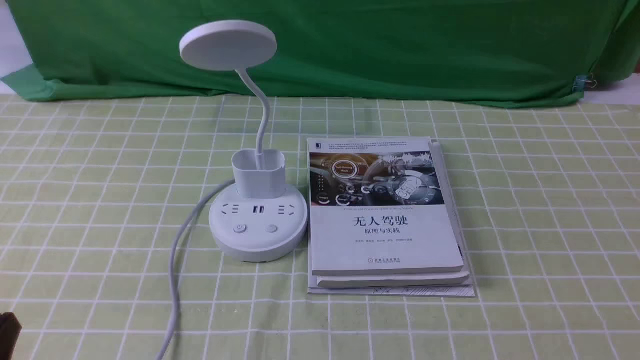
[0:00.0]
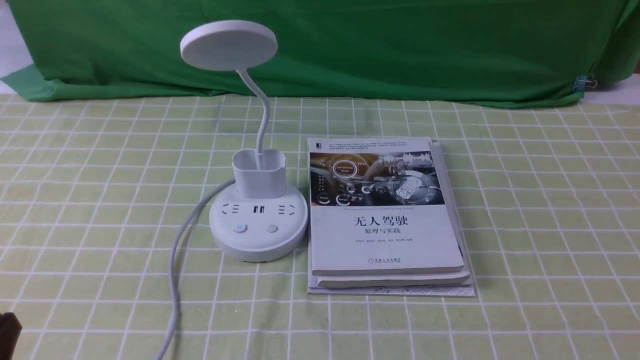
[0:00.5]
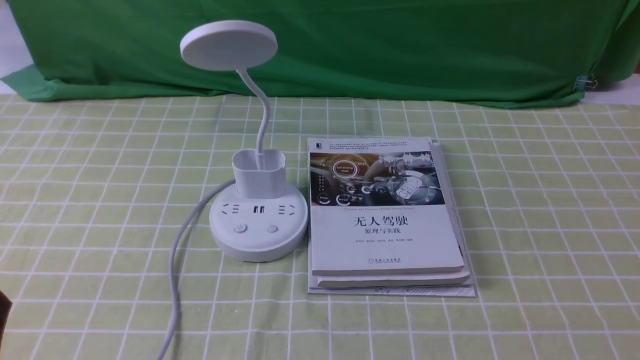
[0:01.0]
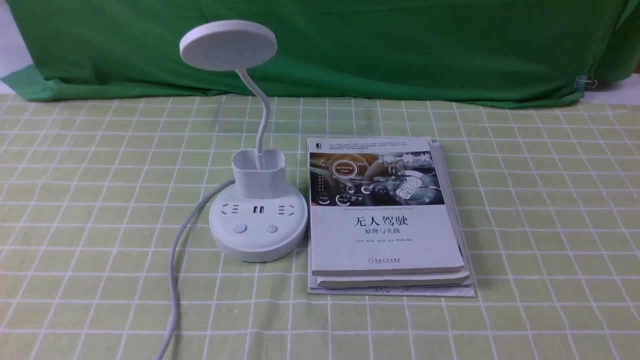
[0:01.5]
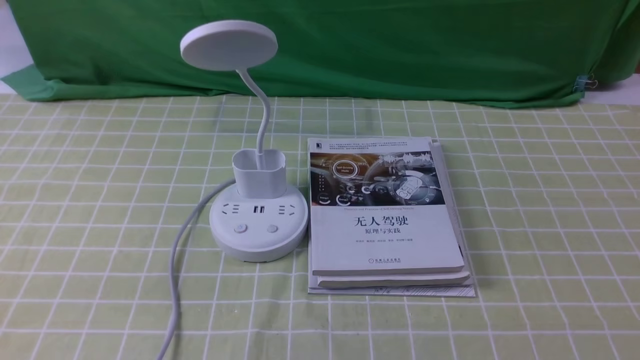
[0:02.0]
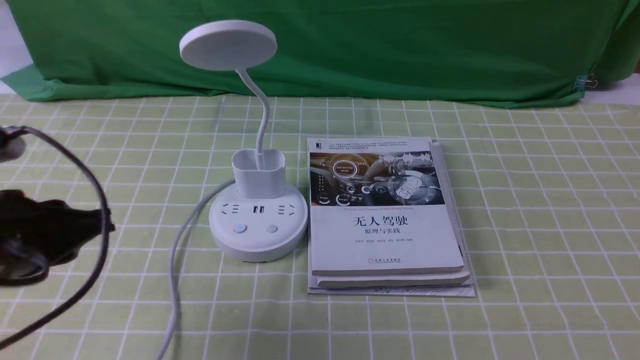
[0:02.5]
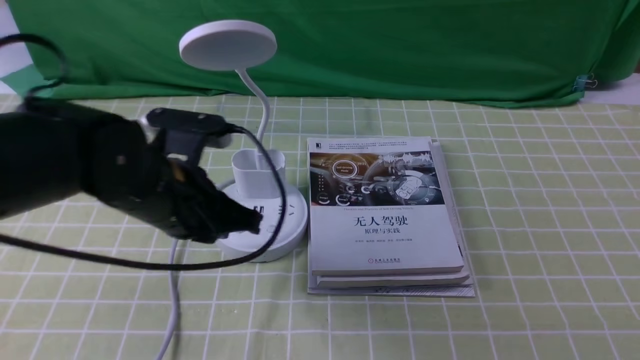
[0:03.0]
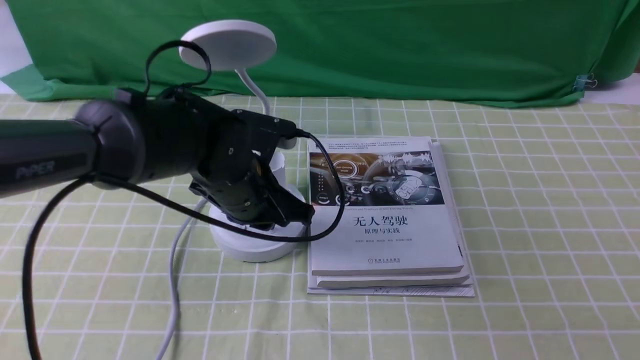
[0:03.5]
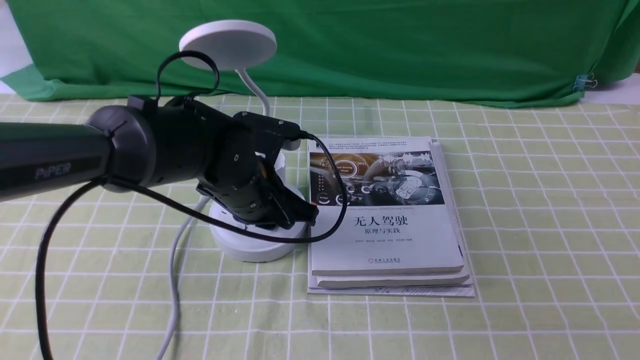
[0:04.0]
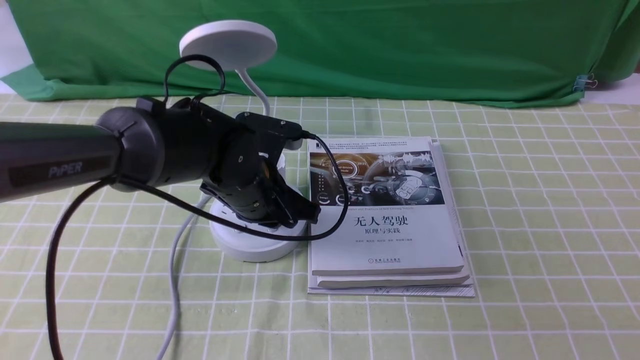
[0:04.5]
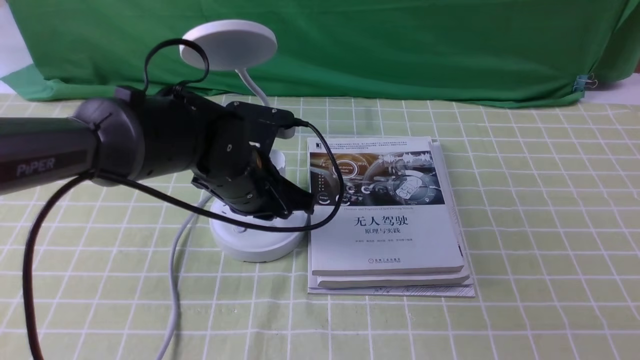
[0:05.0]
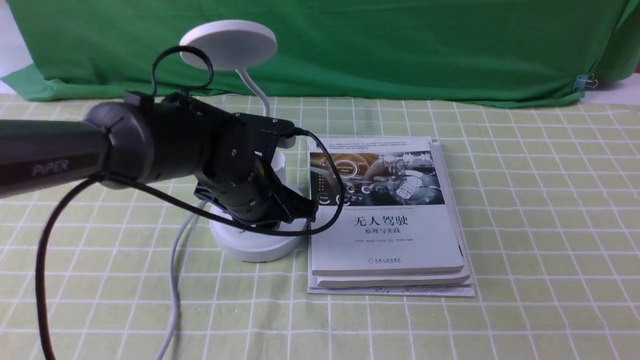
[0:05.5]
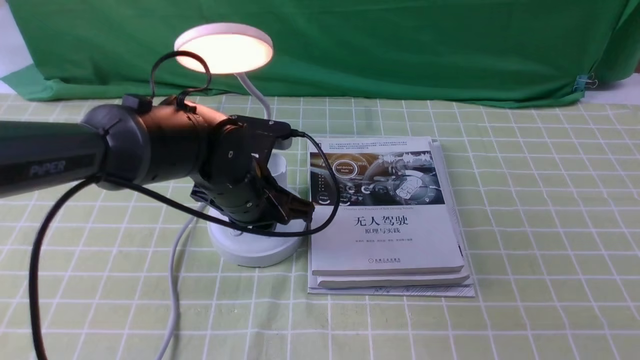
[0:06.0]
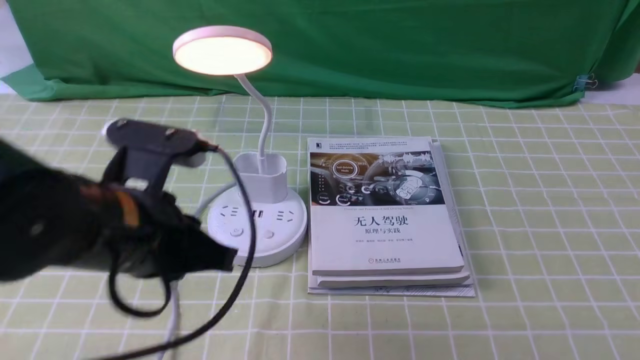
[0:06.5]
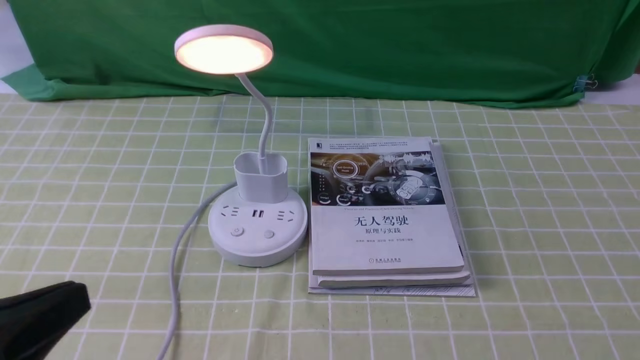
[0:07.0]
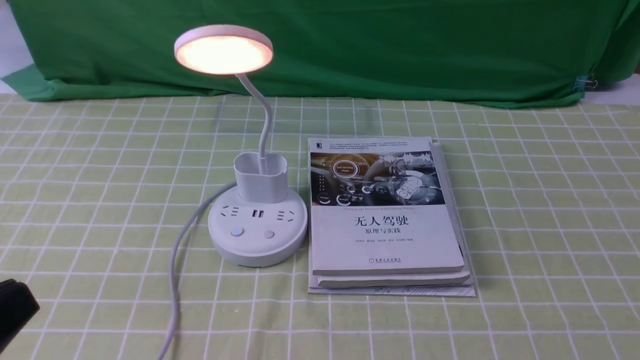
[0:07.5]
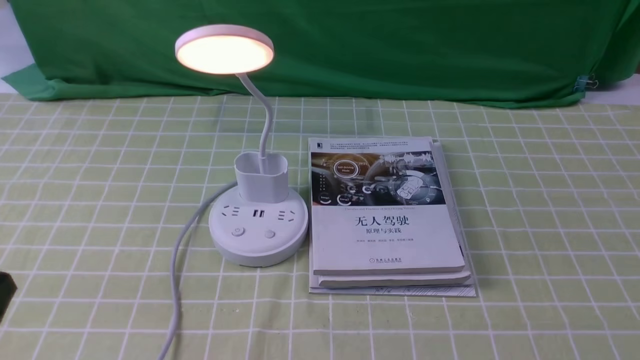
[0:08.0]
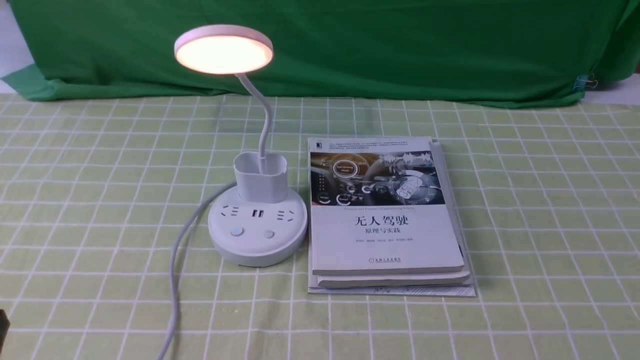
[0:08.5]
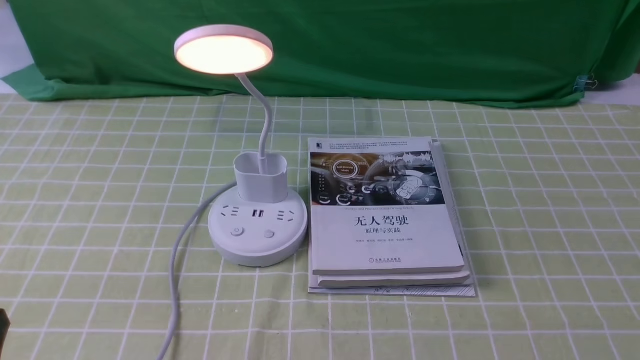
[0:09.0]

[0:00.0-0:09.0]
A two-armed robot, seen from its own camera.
Step, 0:00.0 to 0:06.0: use the left arm to press the button switch on the lamp holder.
0:02.0 to 0:04.5: The left gripper goes some 35 cm forward, to the right and downward.
0:04.5 to 0:07.0: The left gripper travels backward, to the left and upward by approximately 30 cm.
0:07.0 to 0:09.0: The left gripper travels downward and to the left by approximately 10 cm, and opens its fingers.

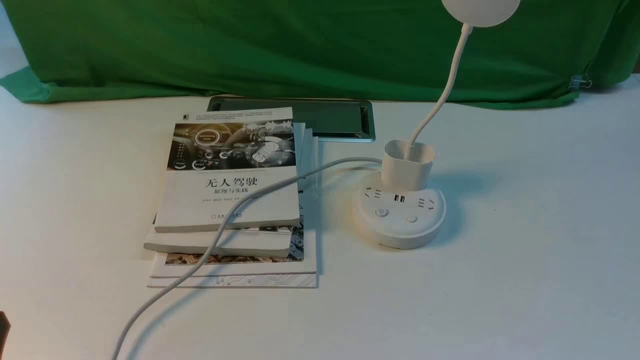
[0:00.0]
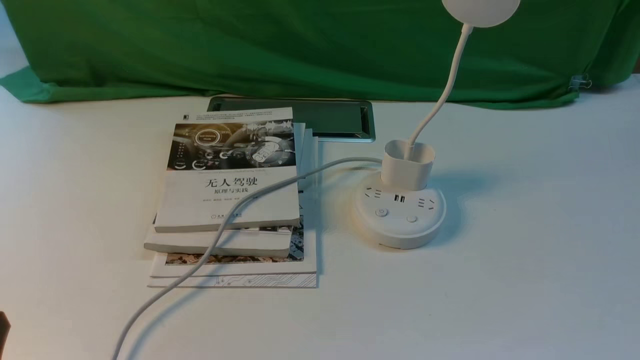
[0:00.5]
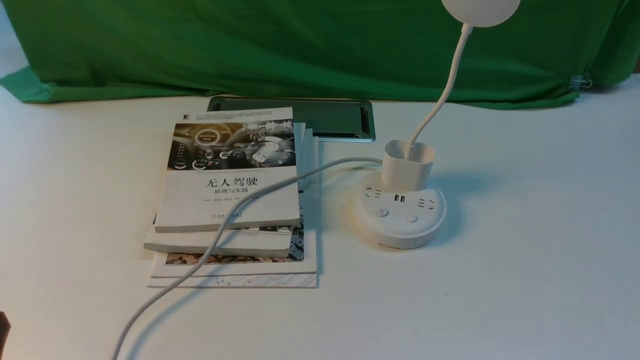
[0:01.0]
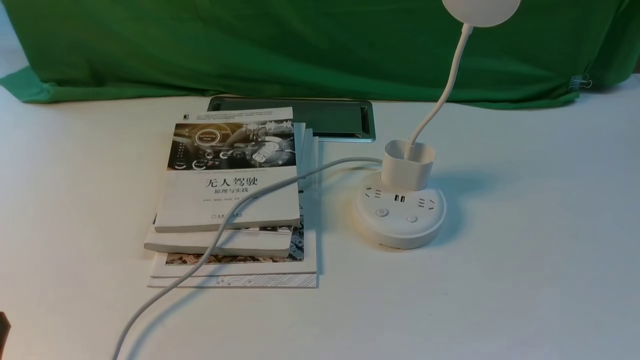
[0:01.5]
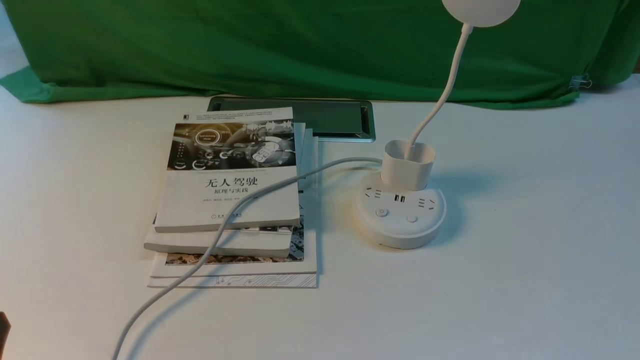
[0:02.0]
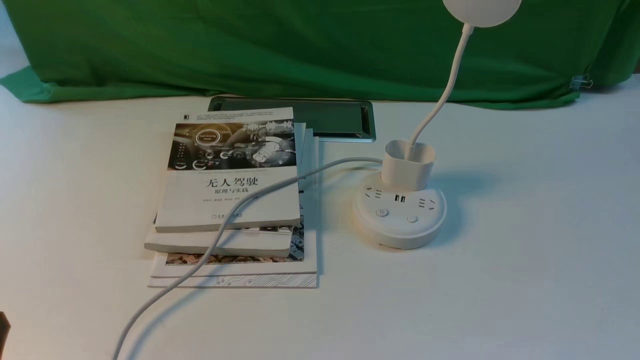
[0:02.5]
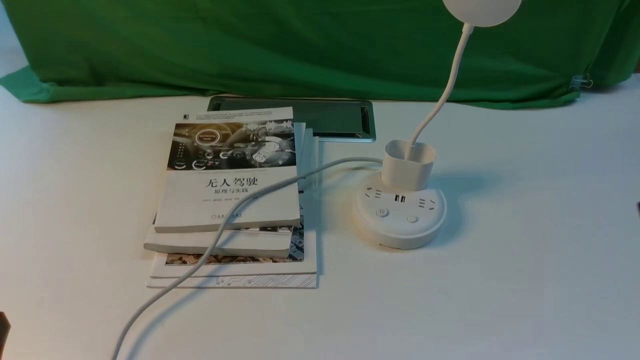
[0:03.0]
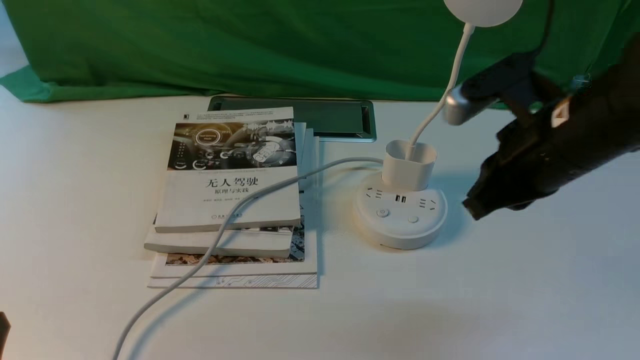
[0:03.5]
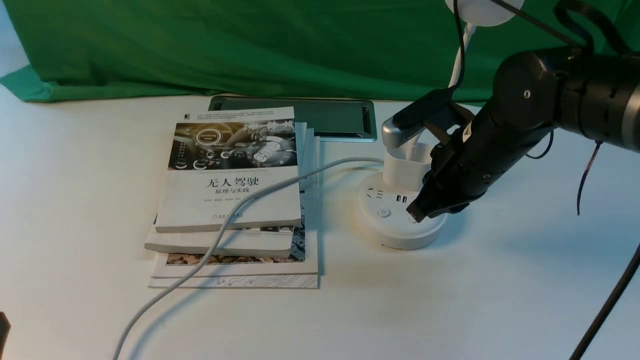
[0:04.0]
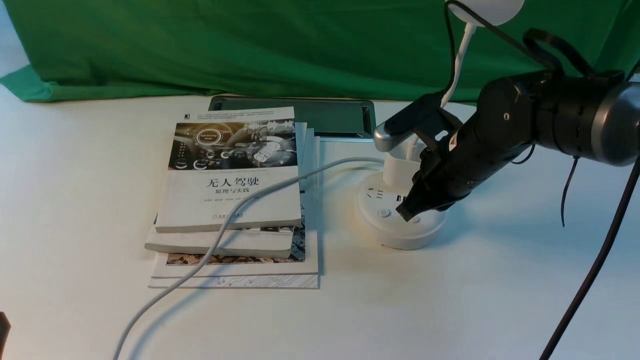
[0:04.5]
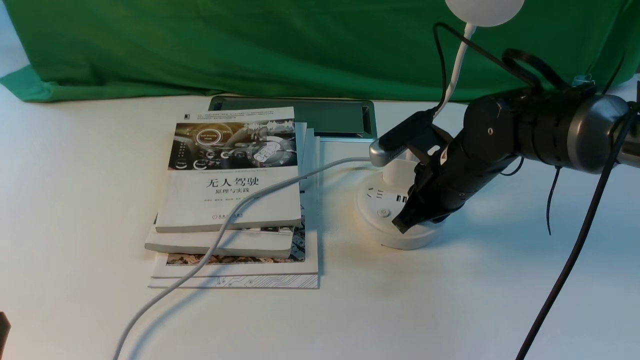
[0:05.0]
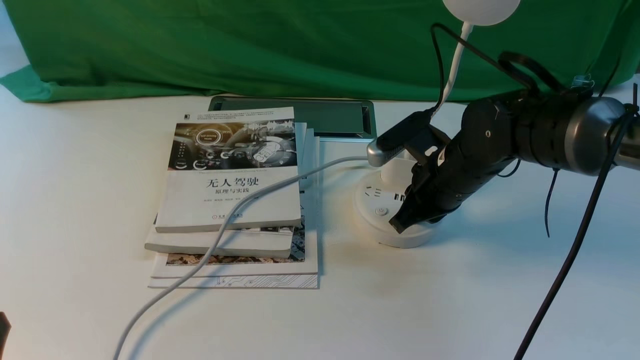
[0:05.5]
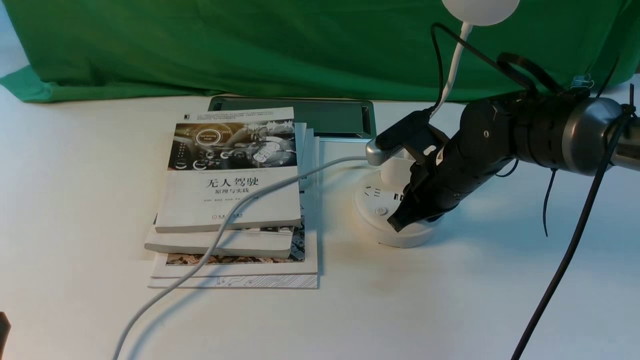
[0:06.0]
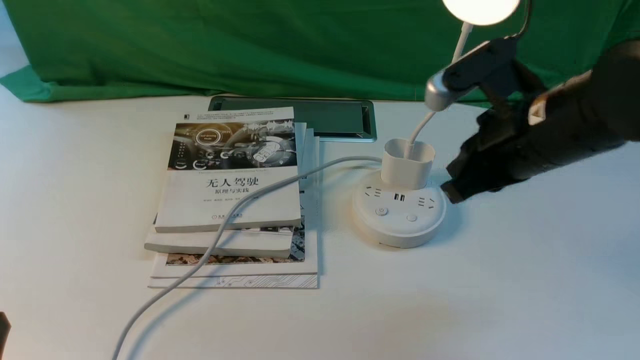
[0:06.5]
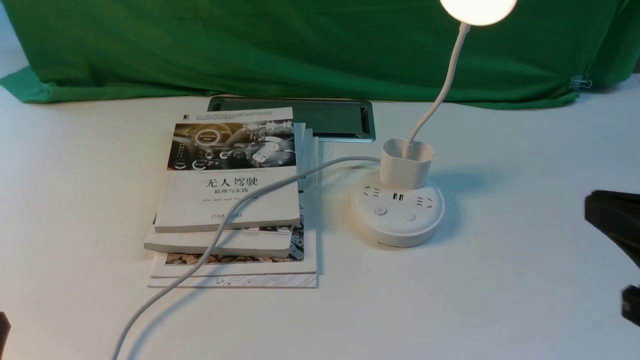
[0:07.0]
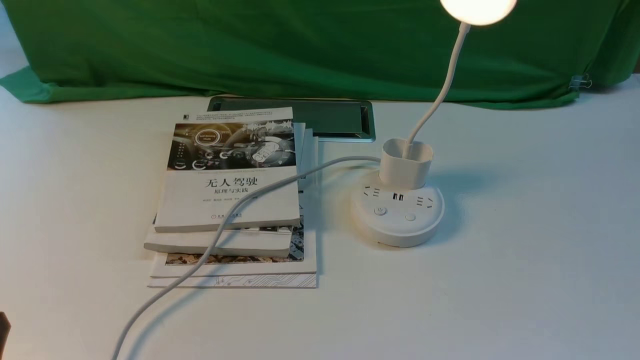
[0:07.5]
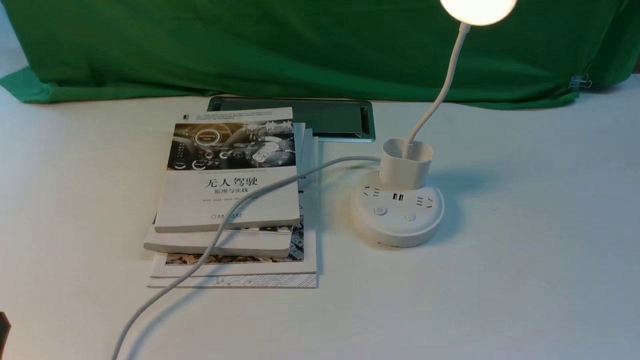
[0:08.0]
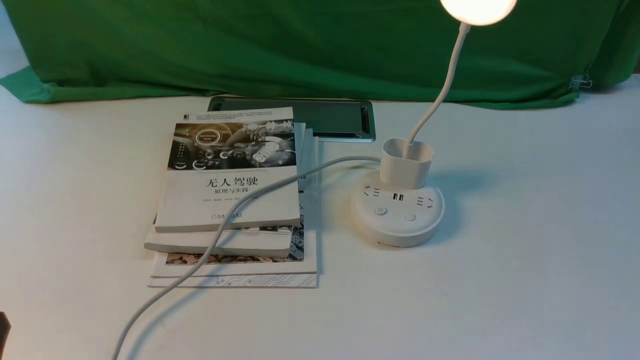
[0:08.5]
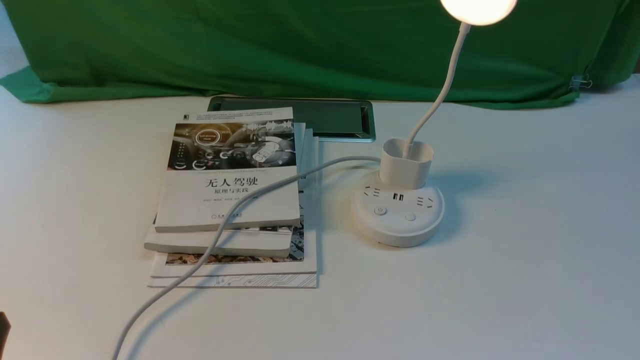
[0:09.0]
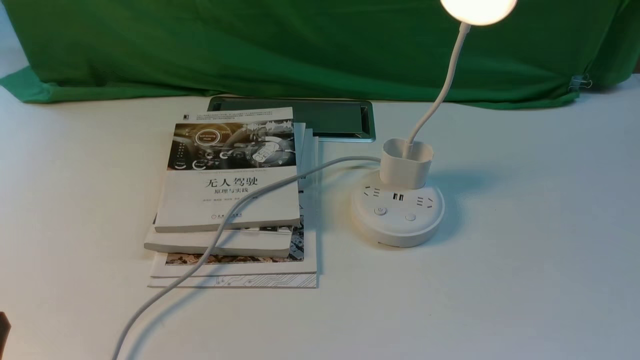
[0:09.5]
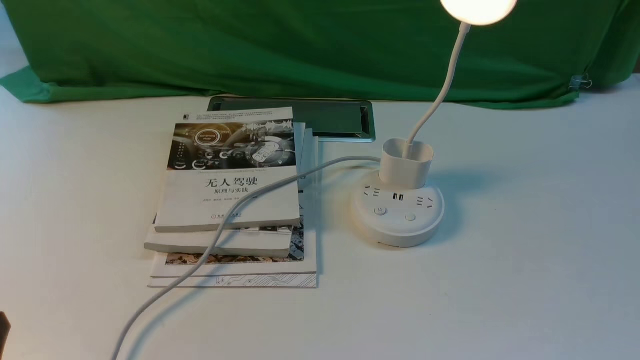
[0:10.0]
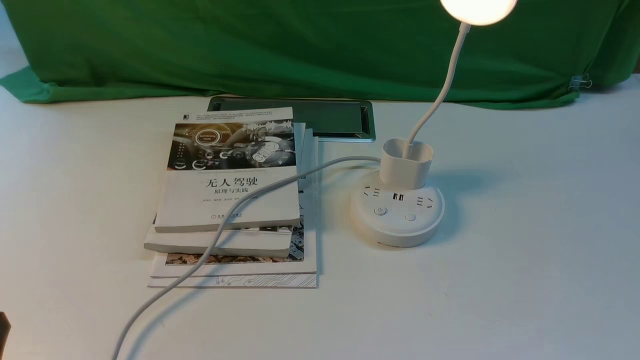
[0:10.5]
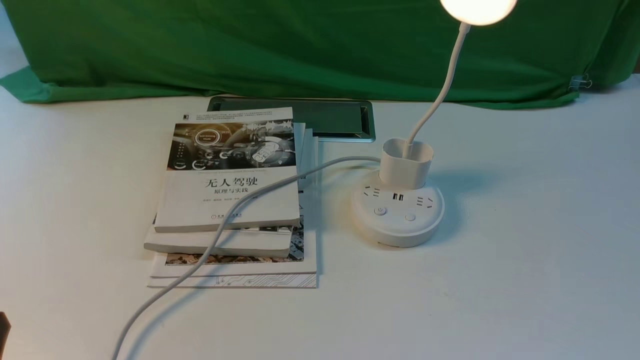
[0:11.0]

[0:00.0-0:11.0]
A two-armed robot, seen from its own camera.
Step, 0:00.0 to 0:06.0: use the right arm to press the button switch on the lamp holder.
0:02.0 to 0:03.5: The right gripper shifts some 30 cm forward, to the left and upward, and closes up.
0:03.5 to 0:05.5: The right gripper shifts approximately 15 cm downward and forward.
0:05.5 to 0:07.5: The right gripper goes roughly 35 cm backward and to the right.
0:09.0 to 0:11.0: Both grippers stay about where they are.
